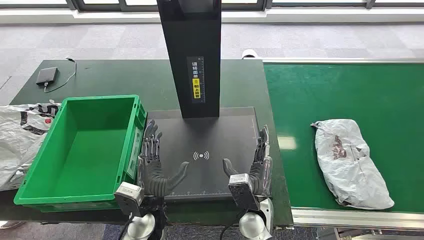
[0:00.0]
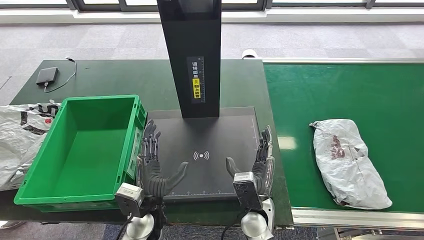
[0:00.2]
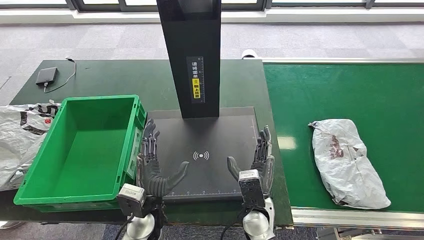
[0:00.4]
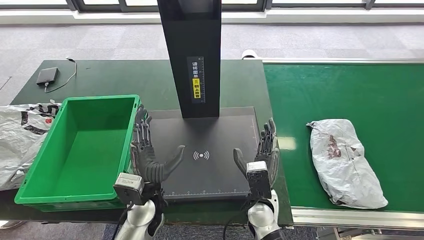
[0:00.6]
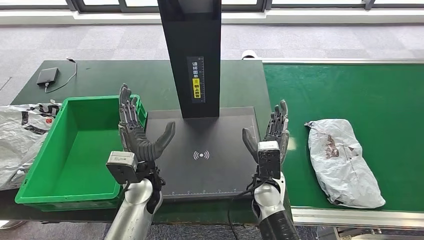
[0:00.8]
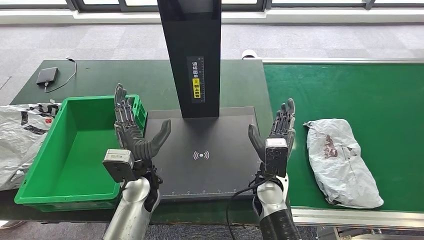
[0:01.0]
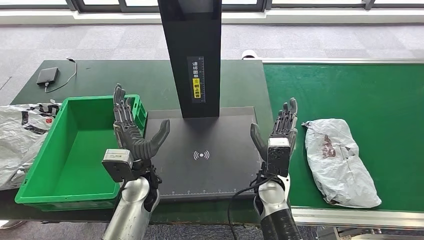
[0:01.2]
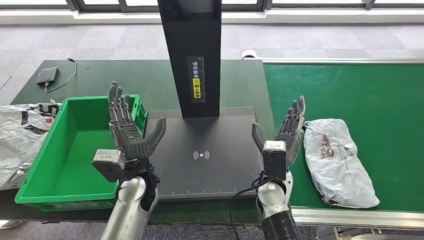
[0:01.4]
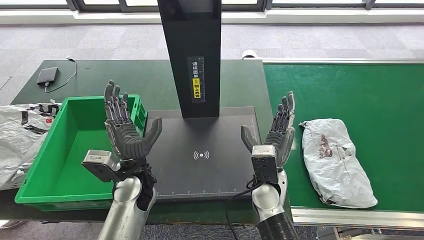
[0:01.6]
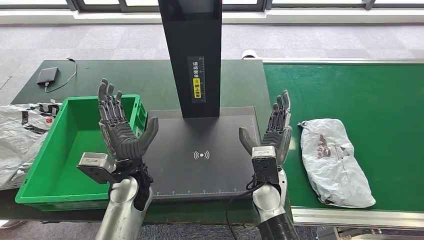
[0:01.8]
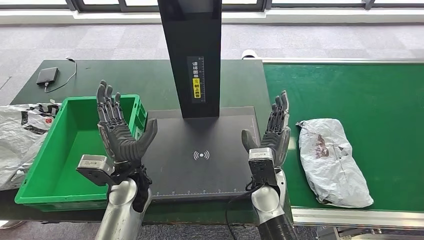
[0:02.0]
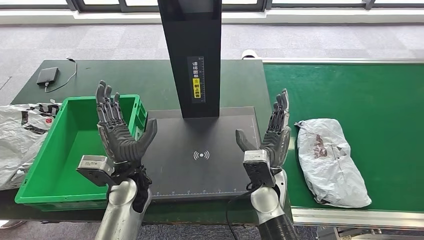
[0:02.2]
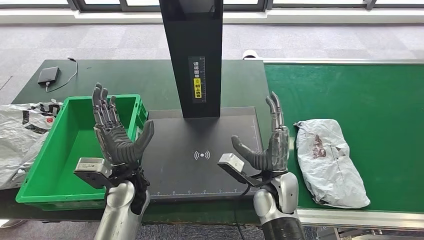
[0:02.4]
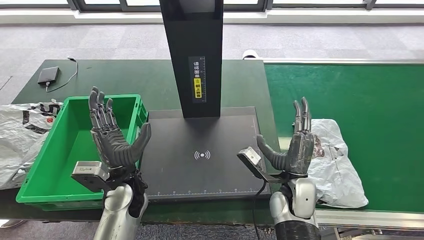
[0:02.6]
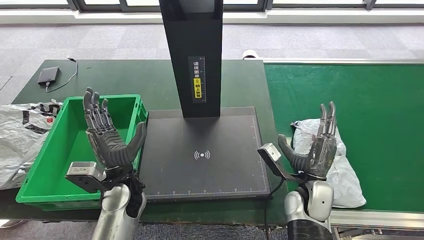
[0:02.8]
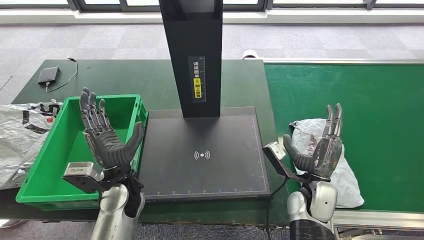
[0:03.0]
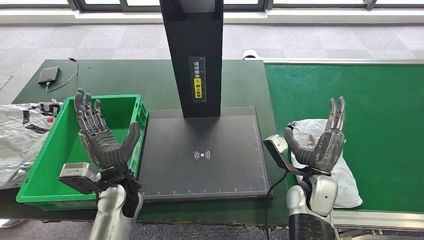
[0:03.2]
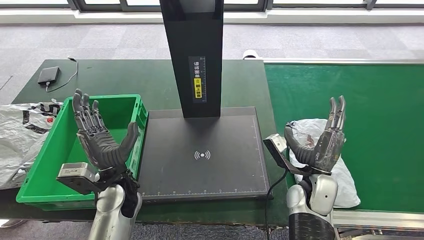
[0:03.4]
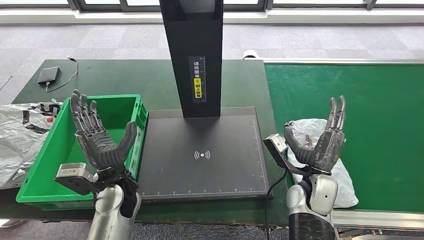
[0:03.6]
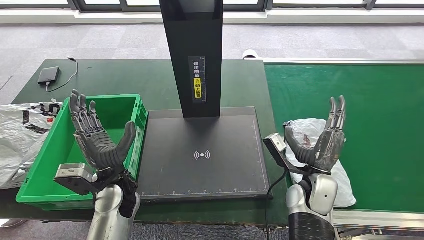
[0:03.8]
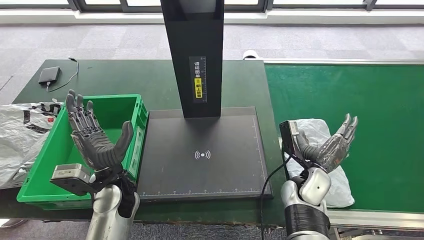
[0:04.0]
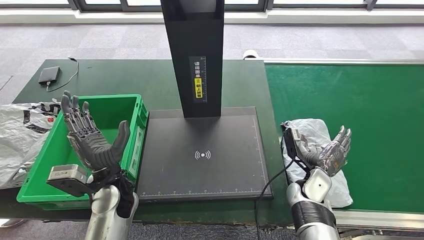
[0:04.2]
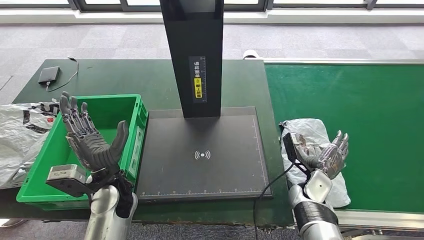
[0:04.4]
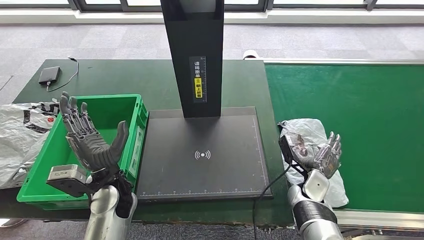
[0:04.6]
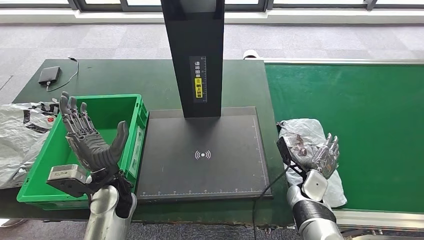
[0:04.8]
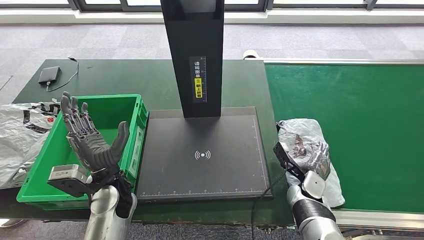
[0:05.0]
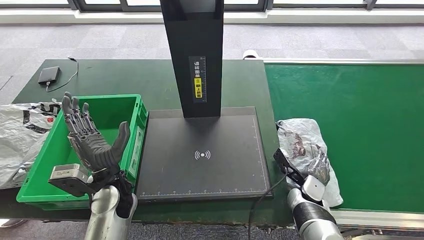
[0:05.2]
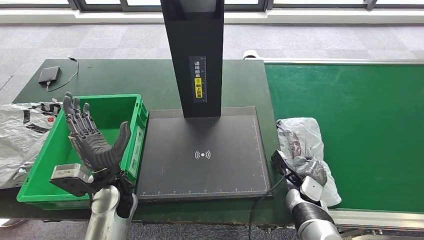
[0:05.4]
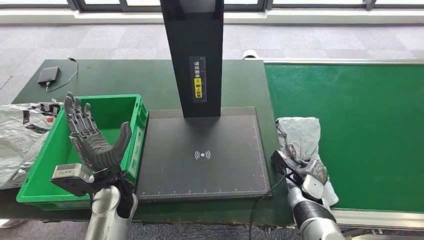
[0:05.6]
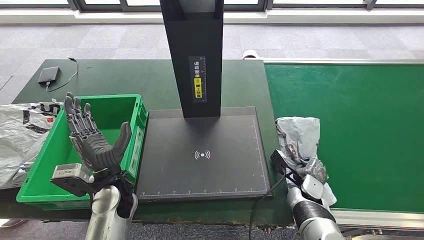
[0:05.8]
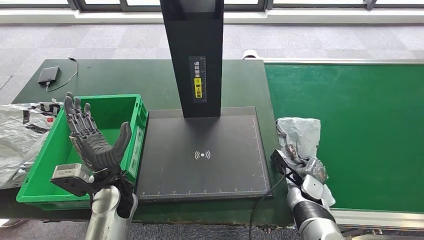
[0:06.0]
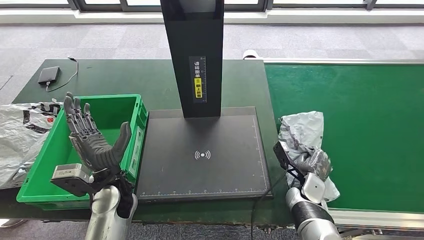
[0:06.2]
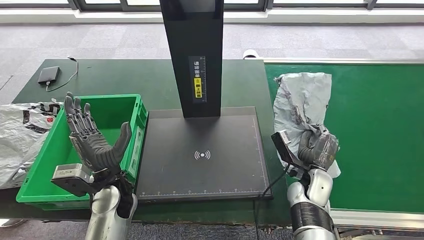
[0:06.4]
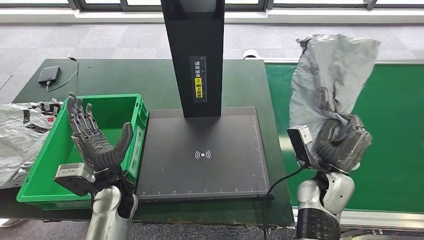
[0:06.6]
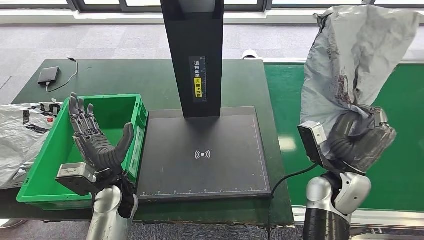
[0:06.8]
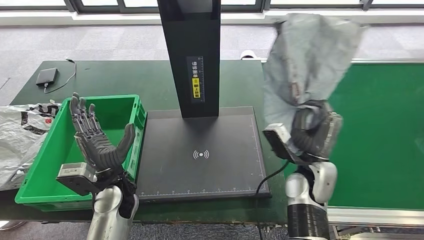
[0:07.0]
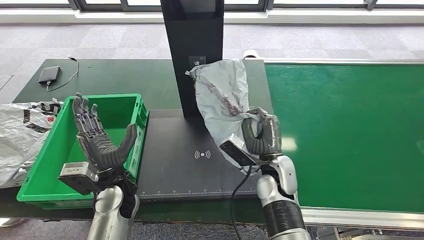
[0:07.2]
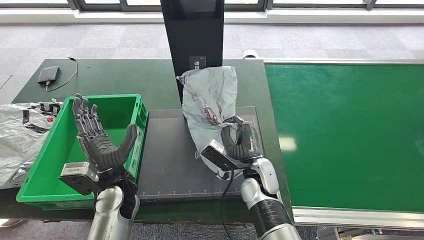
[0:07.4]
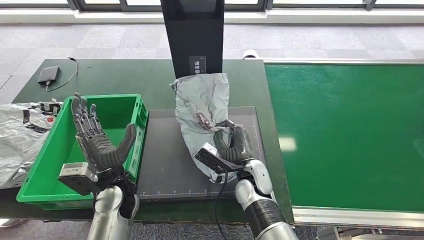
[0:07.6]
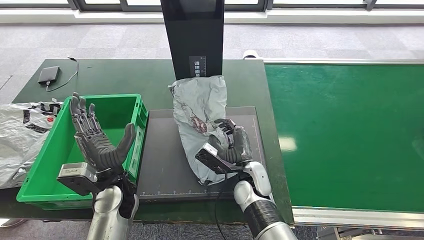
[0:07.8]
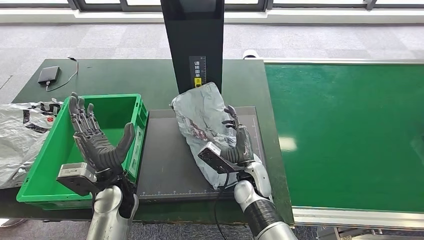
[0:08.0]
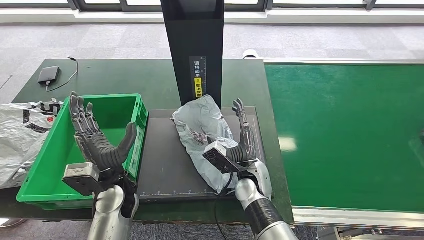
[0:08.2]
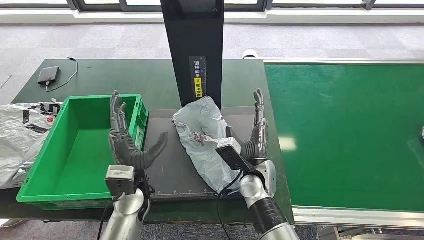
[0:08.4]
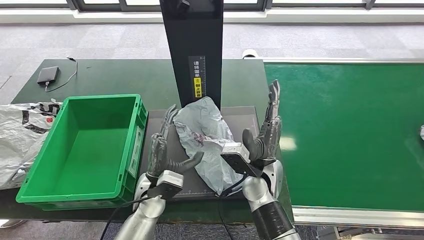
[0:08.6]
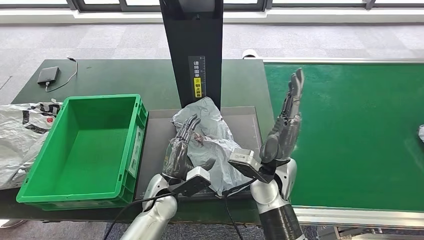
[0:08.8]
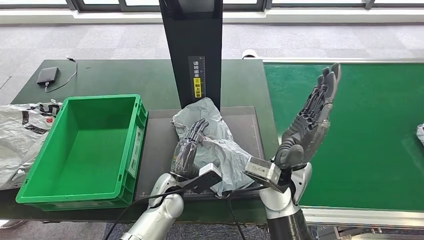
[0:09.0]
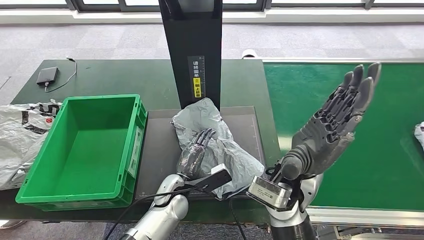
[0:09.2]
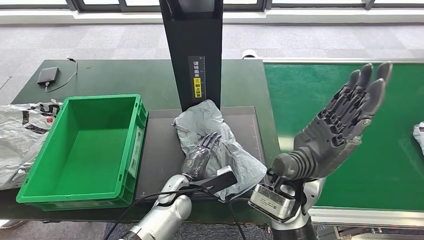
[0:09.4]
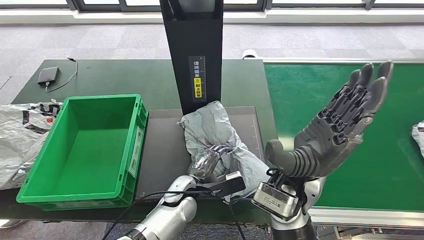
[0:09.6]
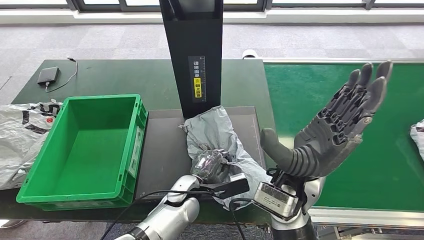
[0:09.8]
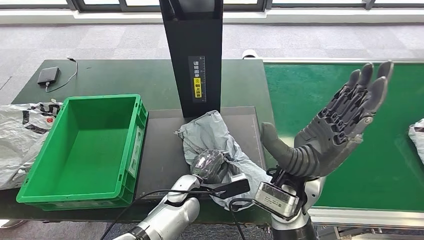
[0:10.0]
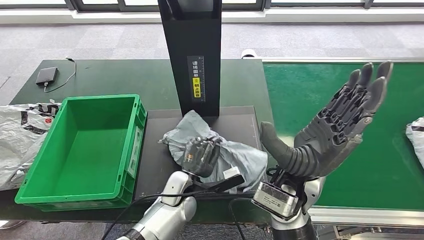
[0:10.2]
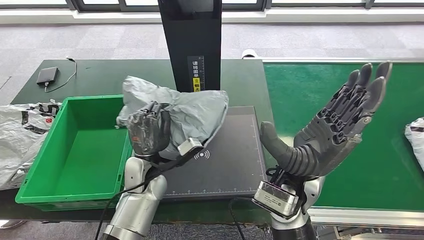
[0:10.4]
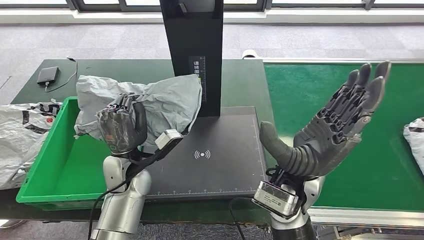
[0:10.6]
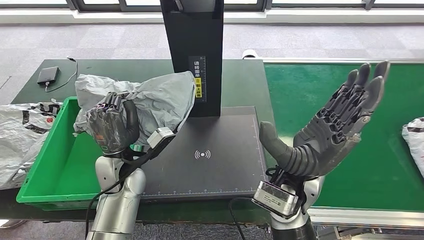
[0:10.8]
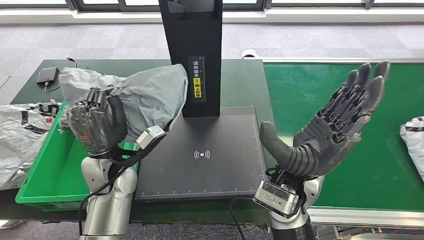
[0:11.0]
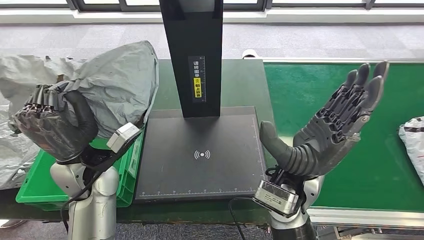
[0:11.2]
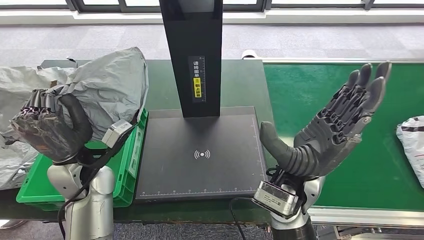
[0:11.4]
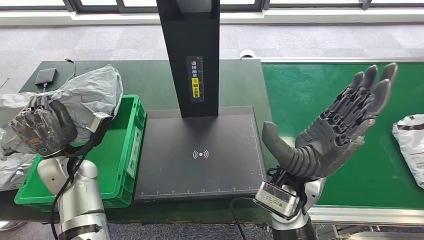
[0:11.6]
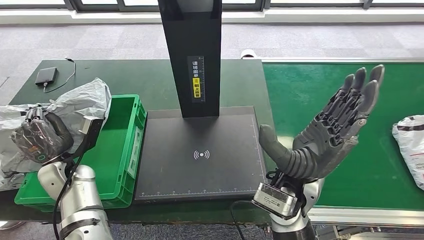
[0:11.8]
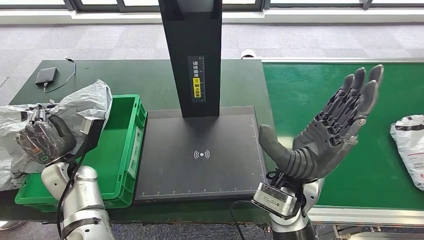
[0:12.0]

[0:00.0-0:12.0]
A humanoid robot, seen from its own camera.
Step, 0:00.0 to 0:07.2: Take the parcel off the conveyor belt.
Step, 0:07.4 to 0:09.0: Place the parcel onto the inbound machine.
Step, 0:09.2 to 0:10.8: Pick up the parcel from the inbound machine.
0:01.6 to 0:03.0: The right hand shifts roughly 10 cm to the right.
0:03.0 to 0:04.4: The right hand is displaced downward by approximately 5 cm.
0:06.0 to 0:07.6: The right hand heads to the left and upward, covering roughly 20 cm.

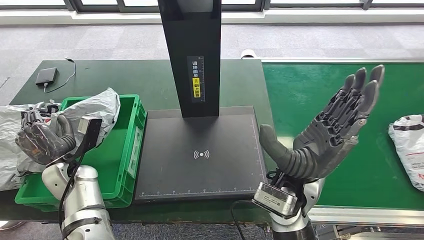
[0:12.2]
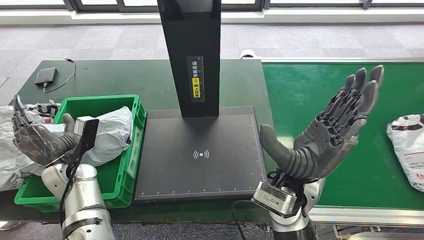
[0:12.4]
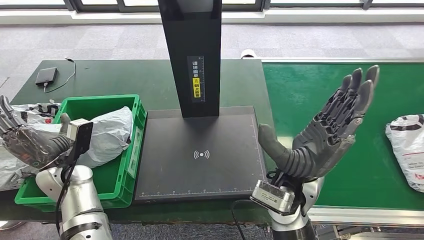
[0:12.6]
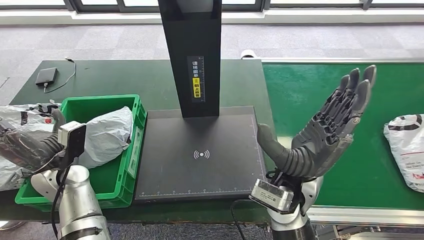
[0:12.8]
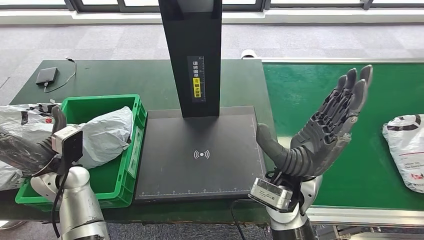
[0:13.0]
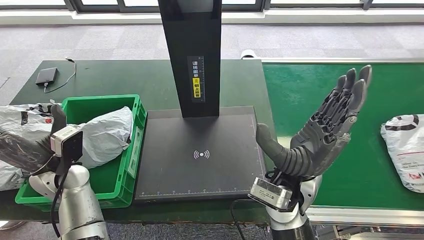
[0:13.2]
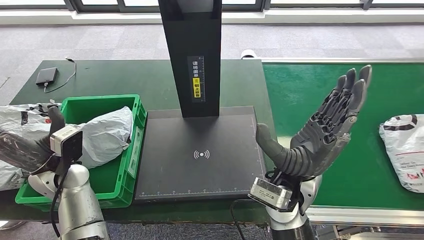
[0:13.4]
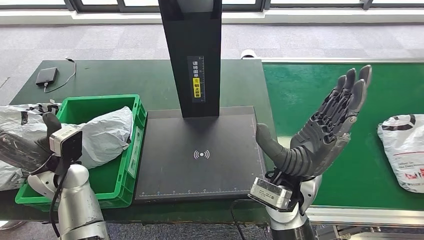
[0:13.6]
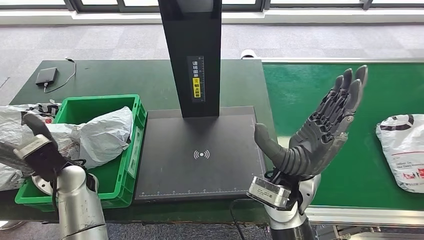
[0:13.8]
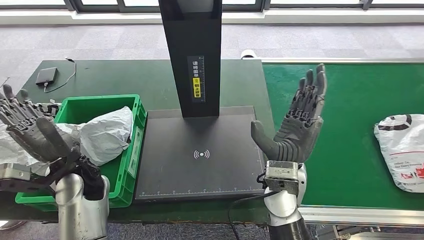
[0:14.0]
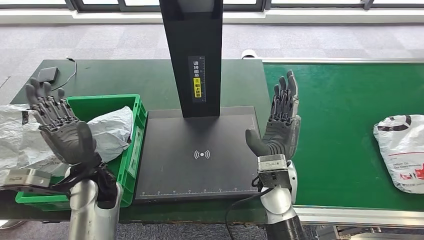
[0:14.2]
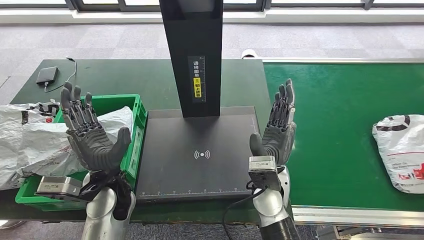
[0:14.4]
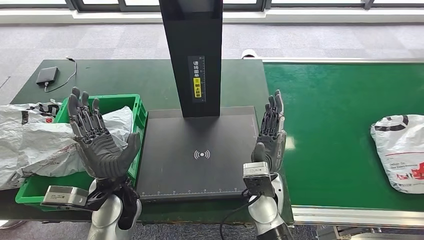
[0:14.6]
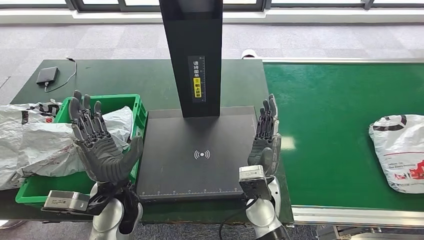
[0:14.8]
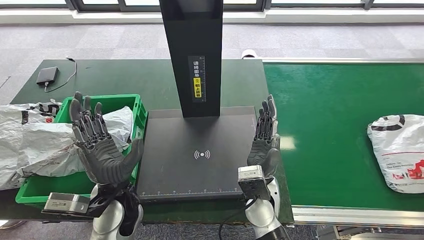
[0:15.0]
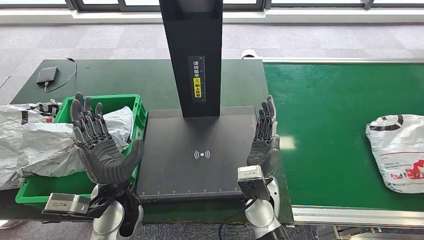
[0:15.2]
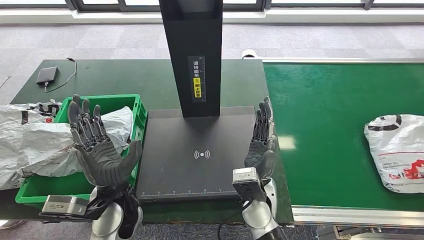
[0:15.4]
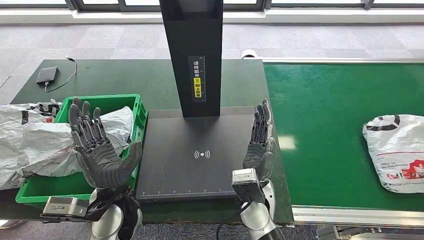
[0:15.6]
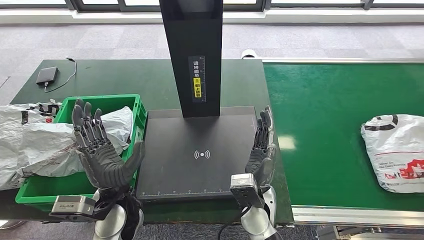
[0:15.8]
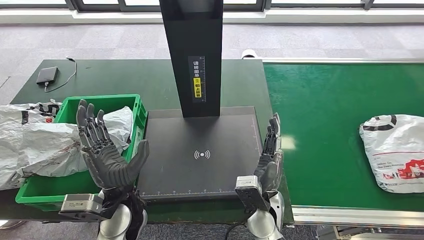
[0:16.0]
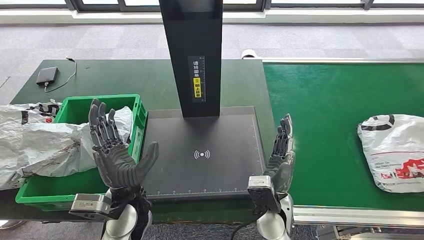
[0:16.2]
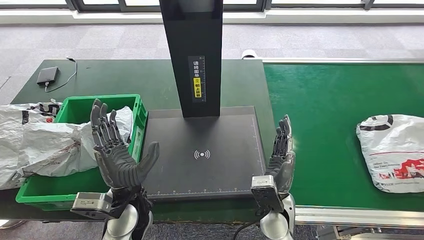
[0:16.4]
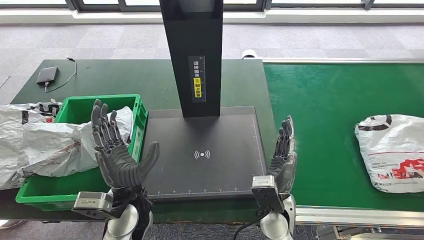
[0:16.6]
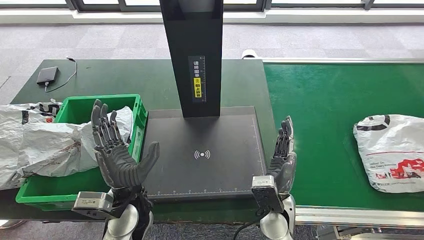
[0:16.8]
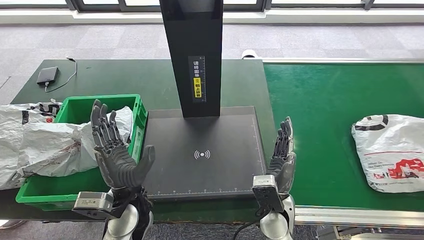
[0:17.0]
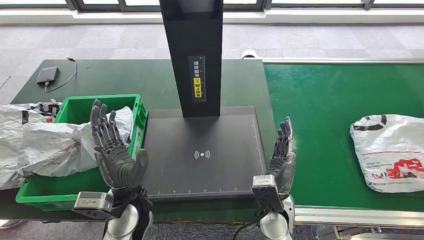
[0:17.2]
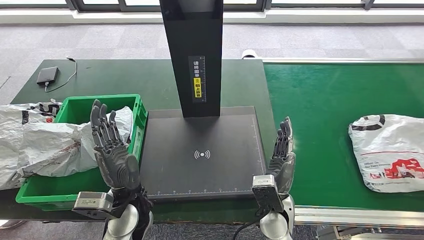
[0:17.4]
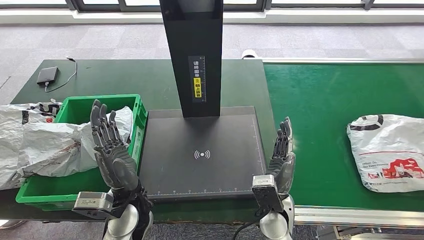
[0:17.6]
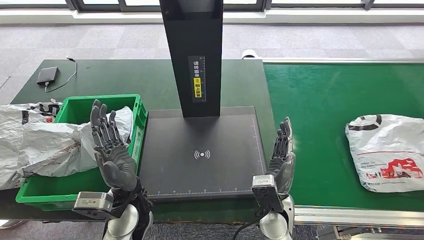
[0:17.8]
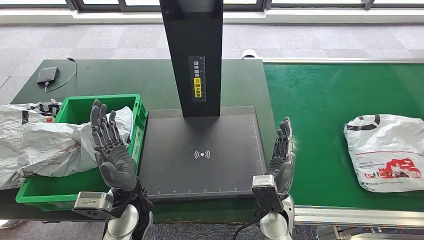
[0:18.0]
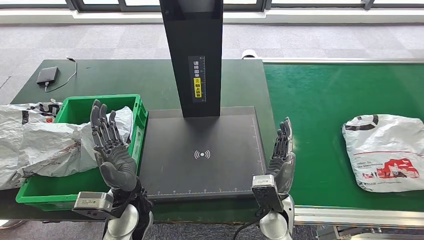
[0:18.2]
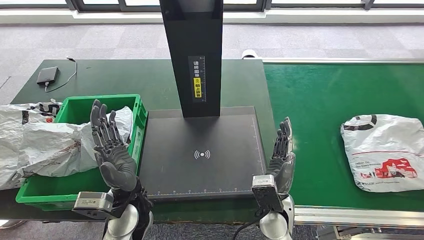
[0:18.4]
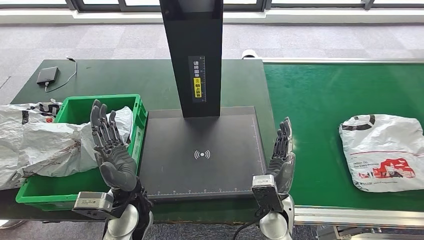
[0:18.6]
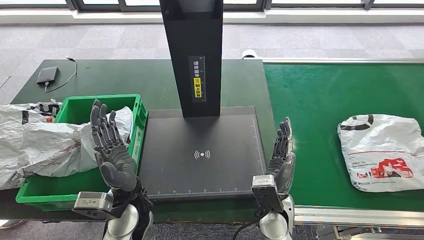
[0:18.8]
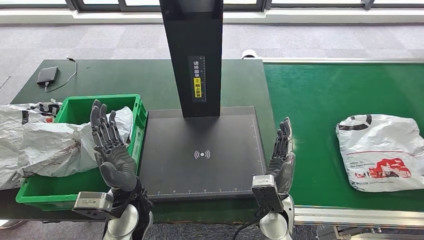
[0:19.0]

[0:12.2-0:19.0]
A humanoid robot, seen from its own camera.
0:12.2 to 0:13.6: The left hand is displaced upward by about 5 cm.
0:15.0 to 0:16.2: The right hand ends up roughly 5 cm from where it was.
0:16.2 to 0:19.0: Neither hand changes place.
